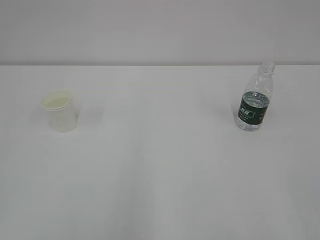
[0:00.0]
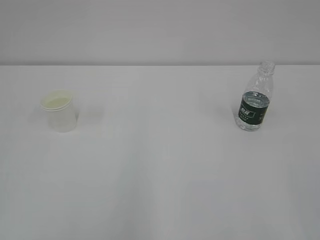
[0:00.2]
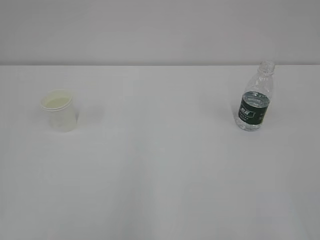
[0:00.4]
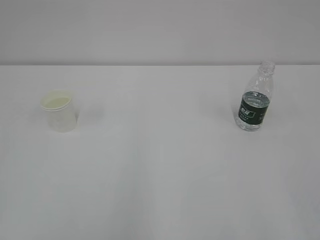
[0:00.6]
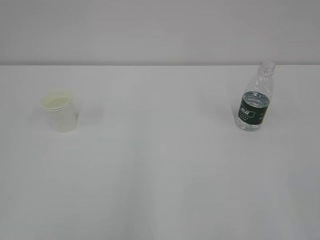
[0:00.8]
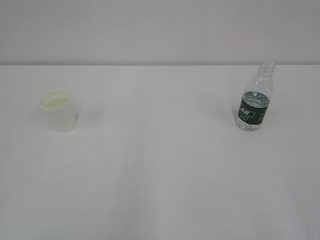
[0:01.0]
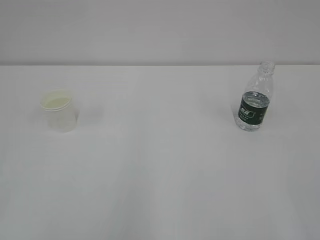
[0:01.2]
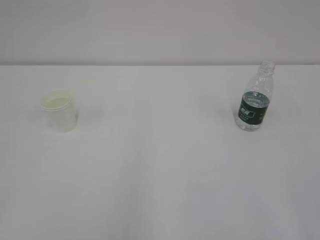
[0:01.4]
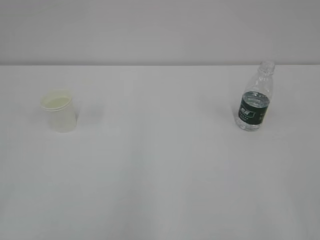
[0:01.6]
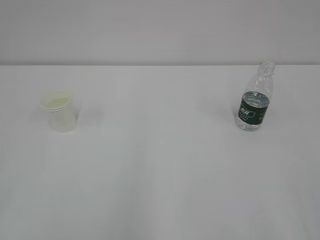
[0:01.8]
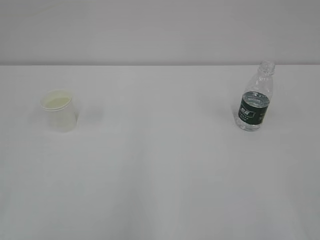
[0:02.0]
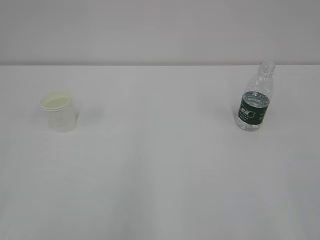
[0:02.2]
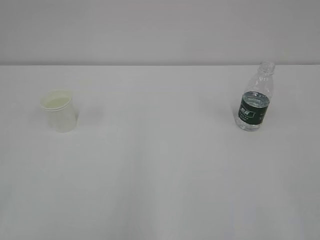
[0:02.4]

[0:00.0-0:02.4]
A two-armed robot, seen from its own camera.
0:01.2 to 0:02.4: The two grippers keep their place.

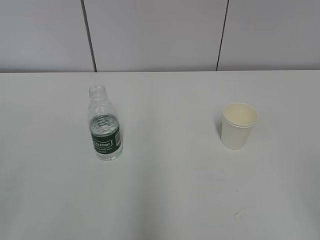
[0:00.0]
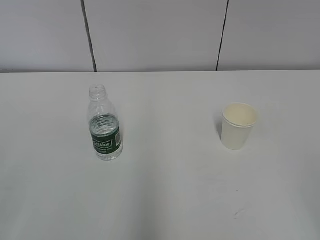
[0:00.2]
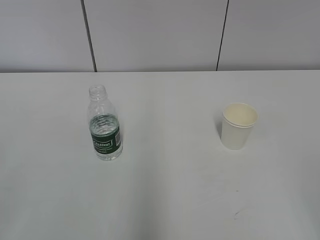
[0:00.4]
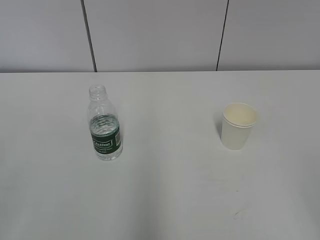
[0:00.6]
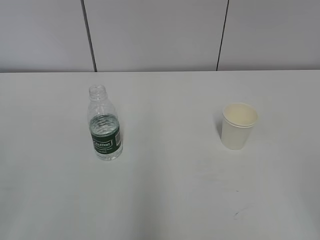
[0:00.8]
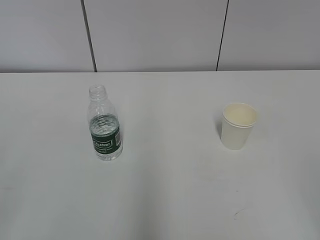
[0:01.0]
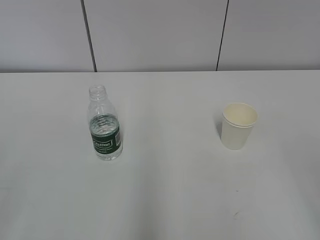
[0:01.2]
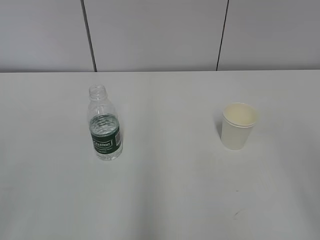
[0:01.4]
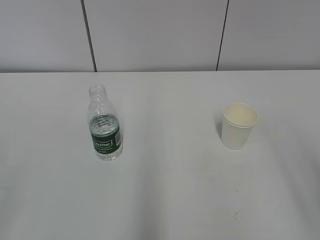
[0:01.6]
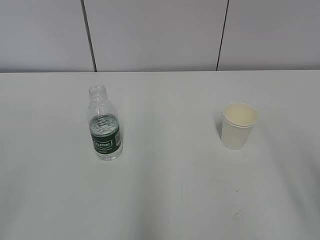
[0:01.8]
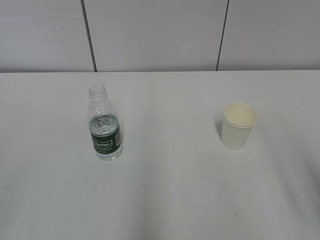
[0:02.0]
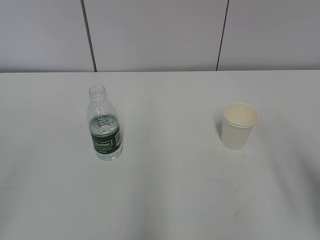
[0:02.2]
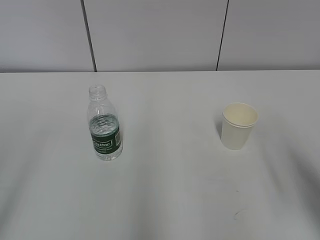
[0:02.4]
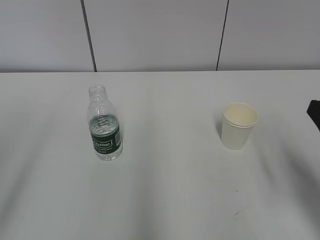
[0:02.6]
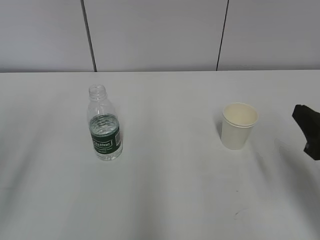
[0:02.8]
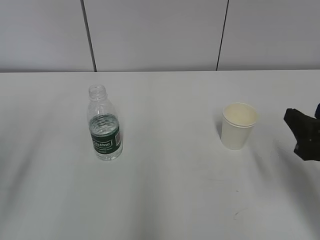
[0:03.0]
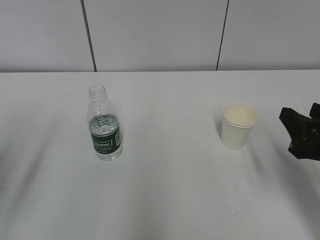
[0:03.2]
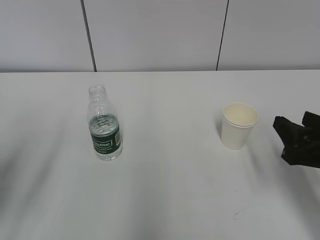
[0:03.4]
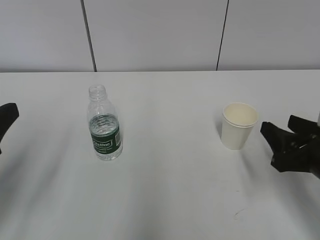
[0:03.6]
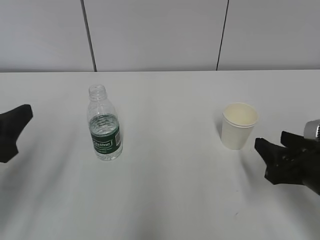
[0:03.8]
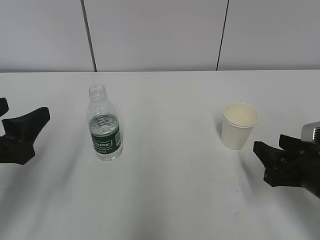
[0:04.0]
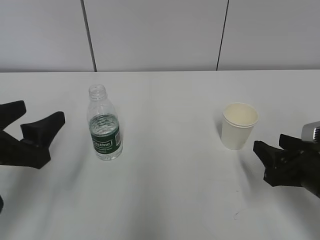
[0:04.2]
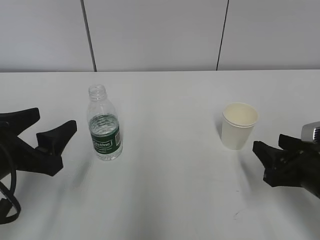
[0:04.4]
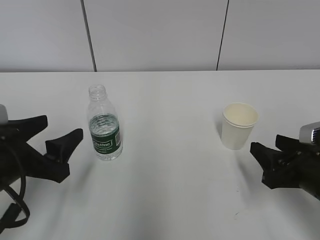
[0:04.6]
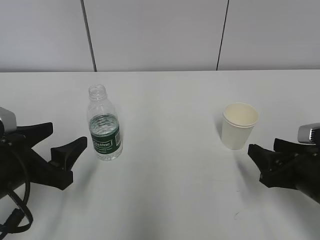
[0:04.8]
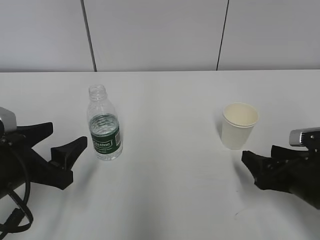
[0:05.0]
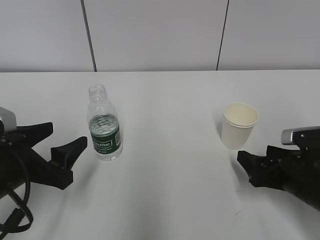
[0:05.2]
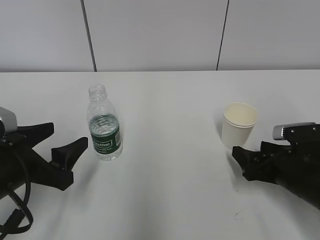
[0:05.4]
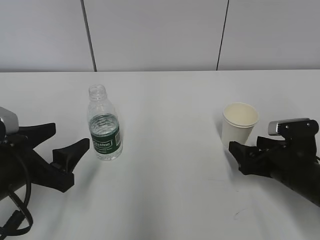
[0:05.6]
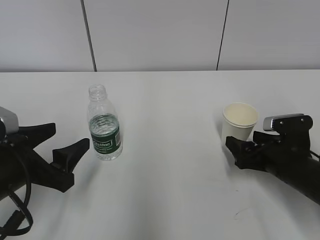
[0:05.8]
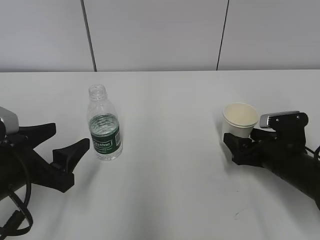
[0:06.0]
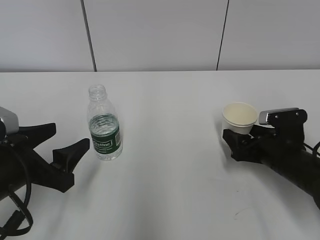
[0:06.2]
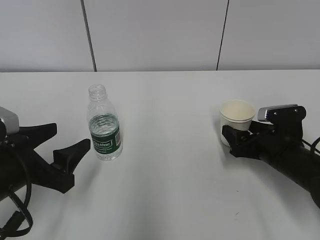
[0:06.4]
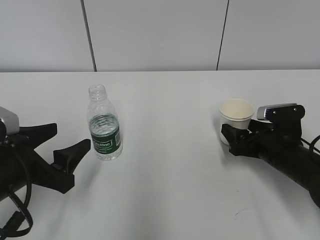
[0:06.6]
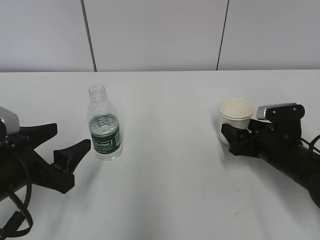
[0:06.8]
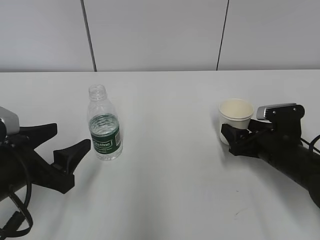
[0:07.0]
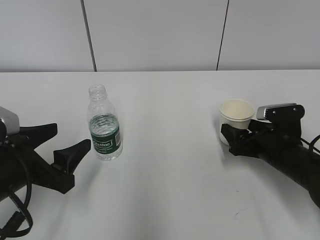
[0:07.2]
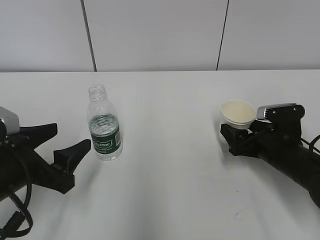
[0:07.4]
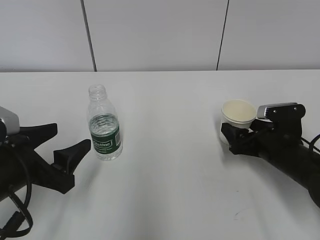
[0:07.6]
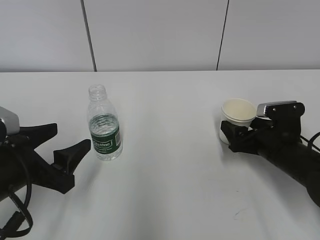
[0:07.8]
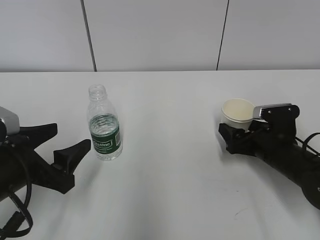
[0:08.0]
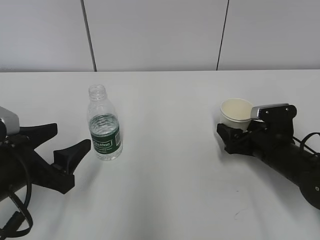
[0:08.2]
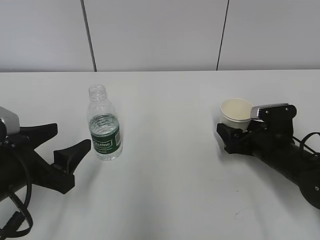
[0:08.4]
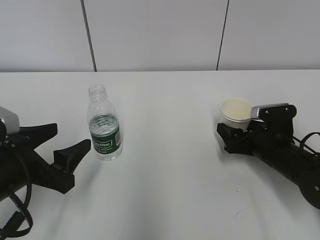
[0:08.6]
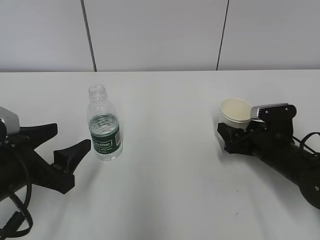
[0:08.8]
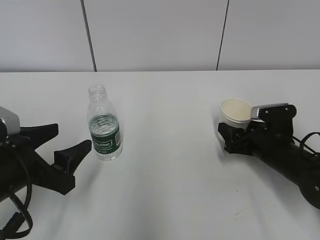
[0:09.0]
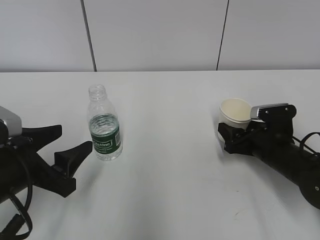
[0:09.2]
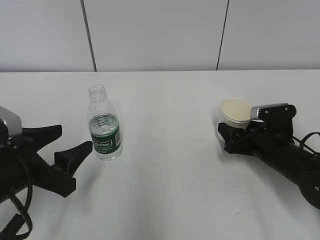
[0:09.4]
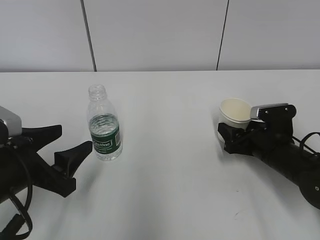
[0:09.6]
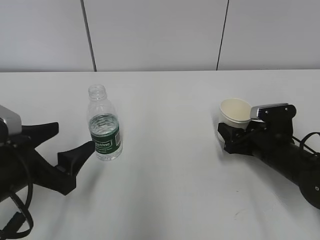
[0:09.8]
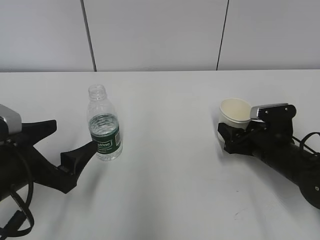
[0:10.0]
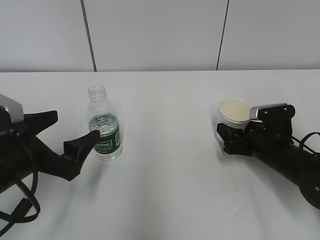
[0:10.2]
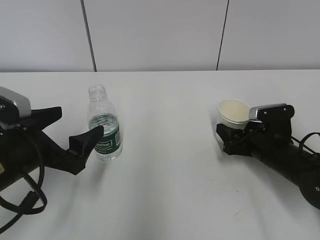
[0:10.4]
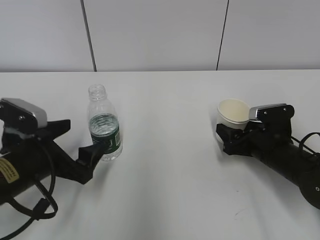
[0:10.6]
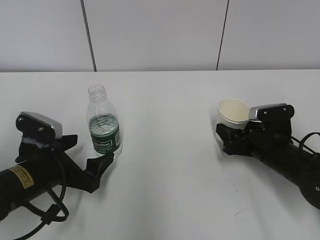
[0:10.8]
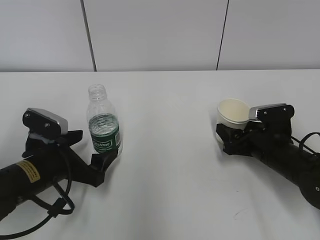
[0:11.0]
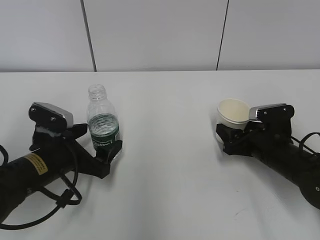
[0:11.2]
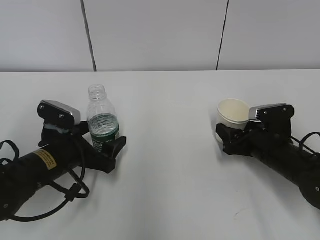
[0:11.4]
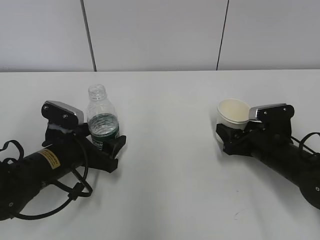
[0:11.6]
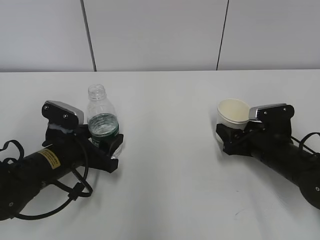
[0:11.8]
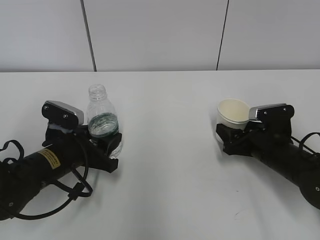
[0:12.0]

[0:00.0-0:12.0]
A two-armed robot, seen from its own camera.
Step, 0:00.0 to 0:10.2: Grab the paper cup with the right hand.
Step, 0:10.4 to 0:11.4: Grab the water bottle with the left hand.
0:01.6 to 0:03.0: The right gripper heads forward and downward, covering roughly 20 cm.
0:03.0 to 0:04.4: The right gripper is displaced downward by some 5 cm. Meanwhile the left gripper is displaced downward, to the right and forward by roughly 15 cm.
0:04.4 to 0:06.0: The right gripper moves forward and downward, some 10 cm, and opens its fingers.
0:06.0 to 0:07.6: There are only small adjustments of the grippers.
0:07.6 to 0:09.0: The right gripper closes.
0:09.0 to 0:10.4: The left gripper opens up.
0:10.4 to 0:12.0: The left gripper travels downward and forward by roughly 10 cm, and closes.

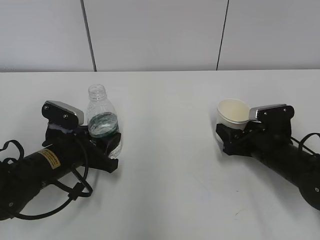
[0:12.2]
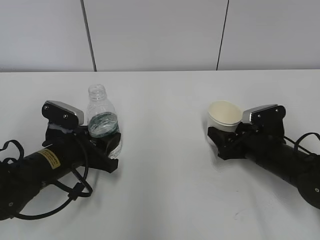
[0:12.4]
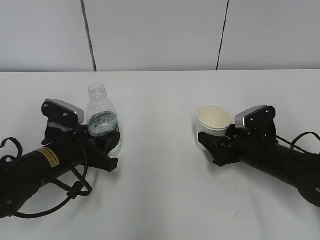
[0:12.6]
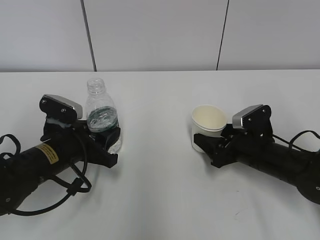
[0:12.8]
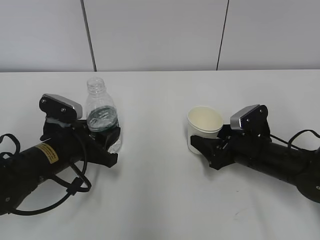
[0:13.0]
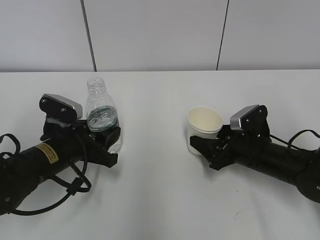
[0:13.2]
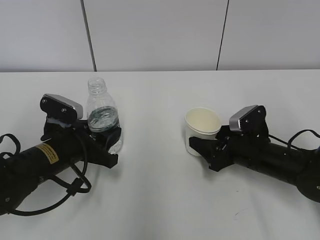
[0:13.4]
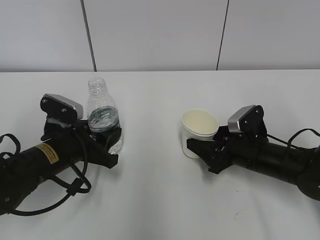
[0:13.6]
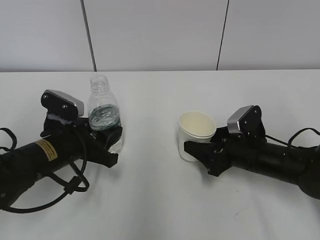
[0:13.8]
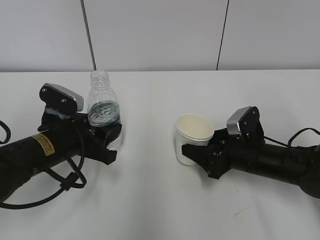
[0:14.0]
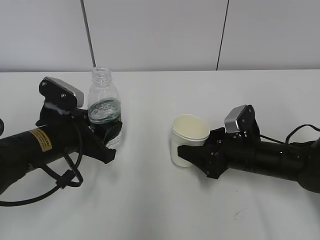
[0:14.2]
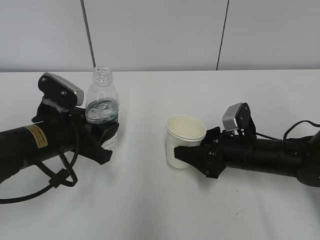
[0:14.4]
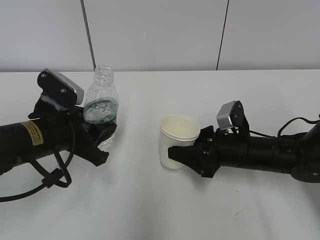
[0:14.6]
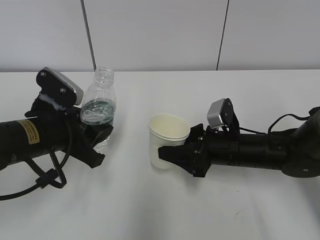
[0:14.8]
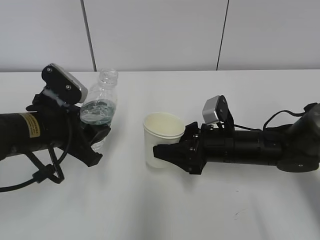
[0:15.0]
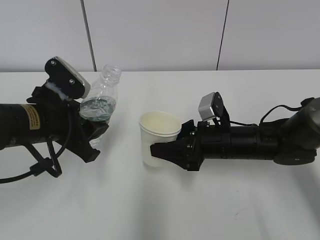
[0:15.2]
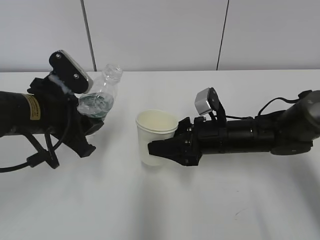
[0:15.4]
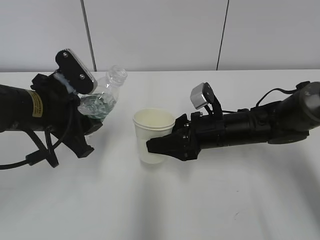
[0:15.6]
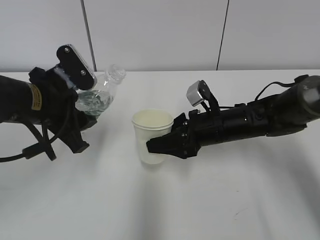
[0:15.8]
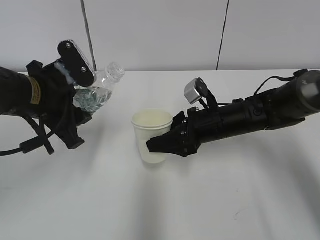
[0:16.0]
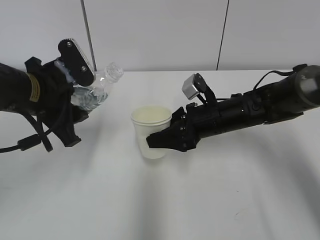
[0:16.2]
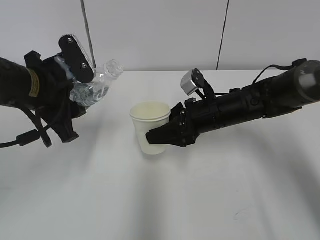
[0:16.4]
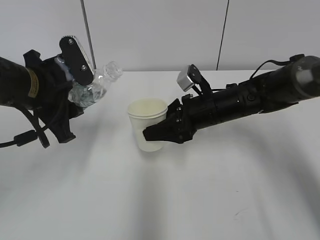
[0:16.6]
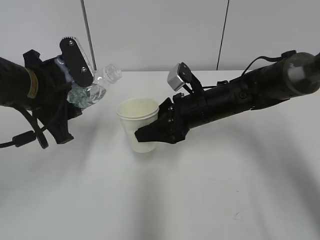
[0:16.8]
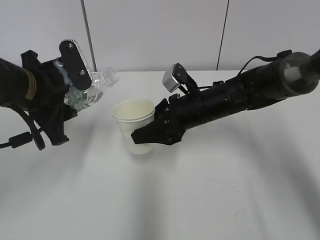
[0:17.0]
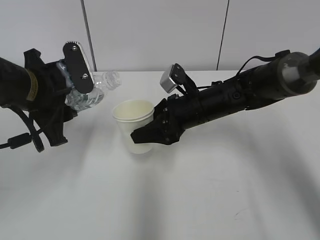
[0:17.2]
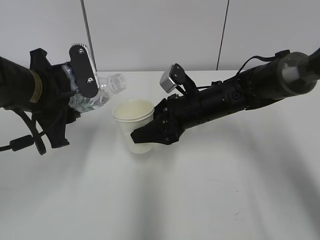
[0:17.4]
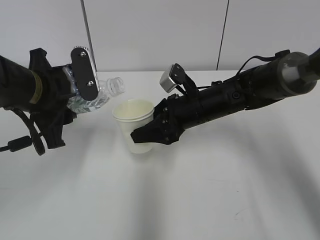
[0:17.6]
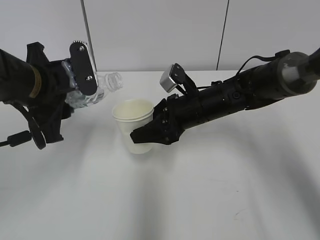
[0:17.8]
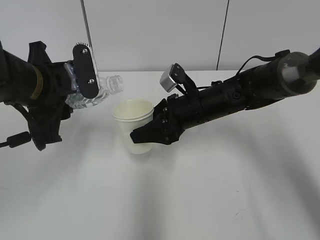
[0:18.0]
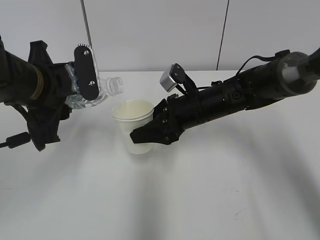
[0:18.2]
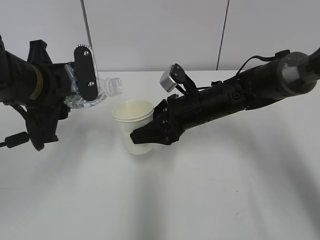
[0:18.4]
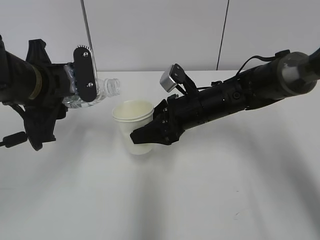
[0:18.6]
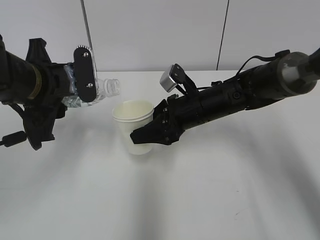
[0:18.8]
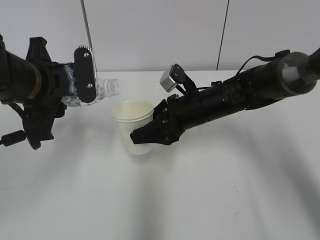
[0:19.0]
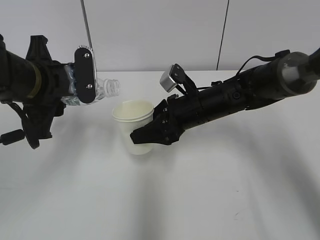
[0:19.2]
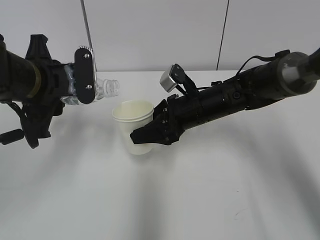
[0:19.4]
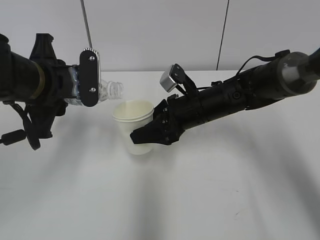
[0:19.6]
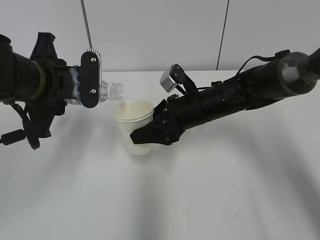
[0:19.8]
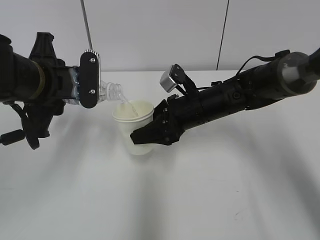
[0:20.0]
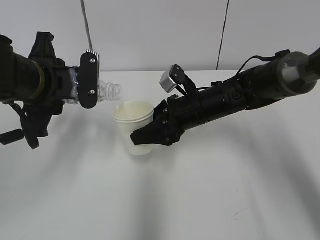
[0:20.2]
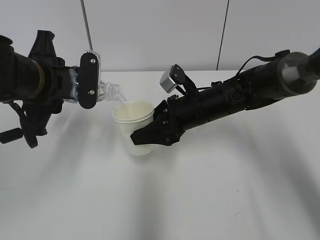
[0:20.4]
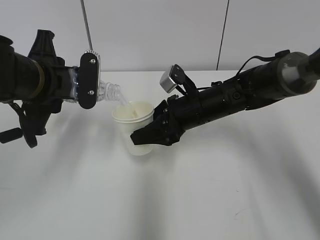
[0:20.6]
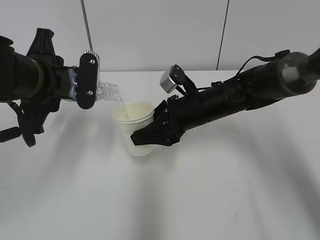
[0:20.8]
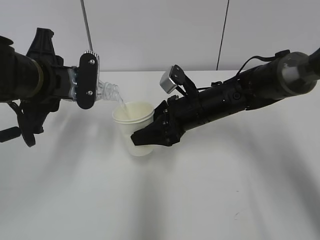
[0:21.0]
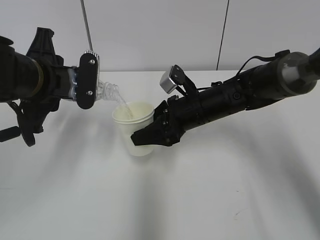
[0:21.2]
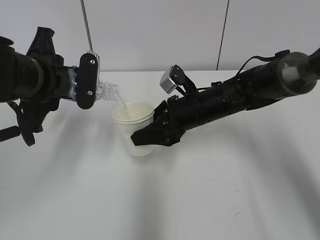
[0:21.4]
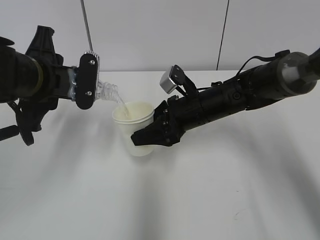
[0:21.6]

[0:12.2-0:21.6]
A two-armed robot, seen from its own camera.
Step, 0:12.2 to 0:16.4: Lift the paper cup with the right hand.
Step, 0:16.6 to 0:19.8: Fill water with the right hand.
Step, 0:16.6 to 0:19.8: Pour water with the left hand.
0:13.8 to 0:15.4: The right gripper shifts roughly 5 cm to the left. Meanwhile the left gripper travels upward by approximately 10 cm.
0:15.4 to 0:17.0: The right gripper shifts by roughly 5 cm.
0:17.0 to 0:18.4: The grippers move only a little.
0:18.4 to 0:21.6: The grippers stay close to where they were, moving slightly.
